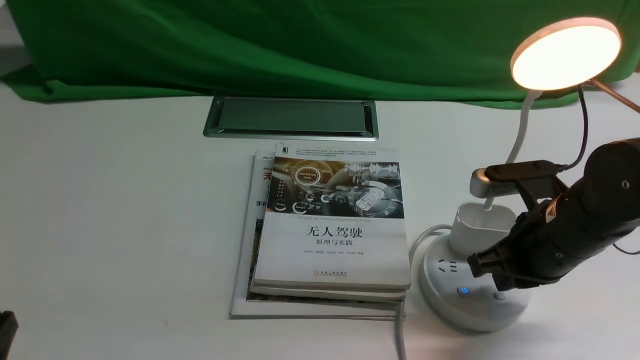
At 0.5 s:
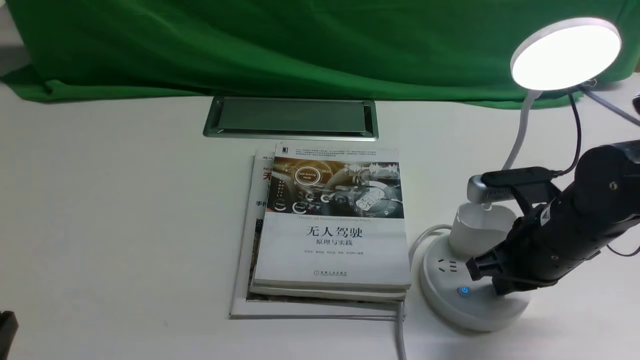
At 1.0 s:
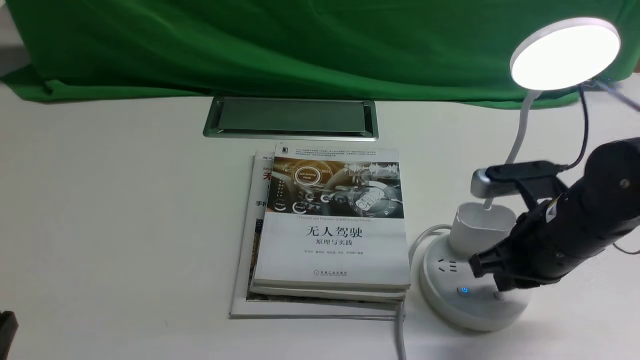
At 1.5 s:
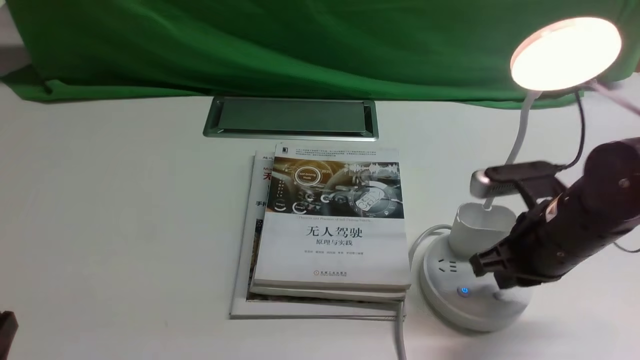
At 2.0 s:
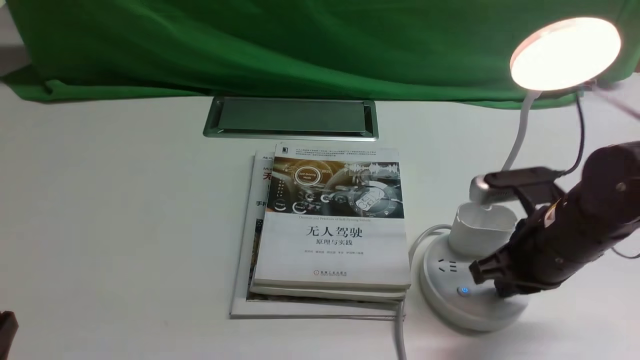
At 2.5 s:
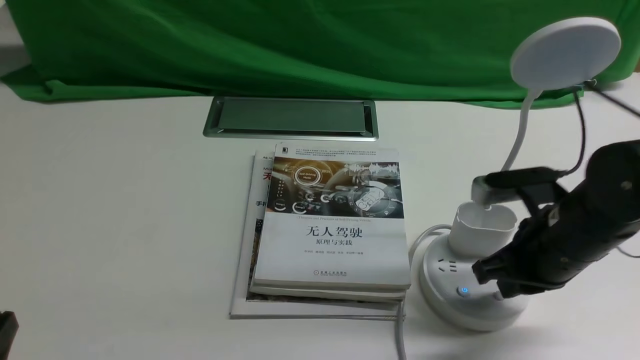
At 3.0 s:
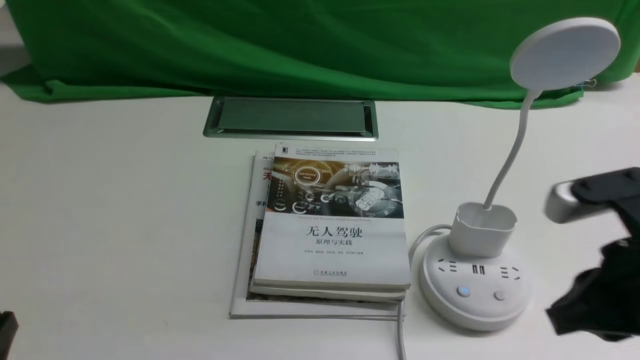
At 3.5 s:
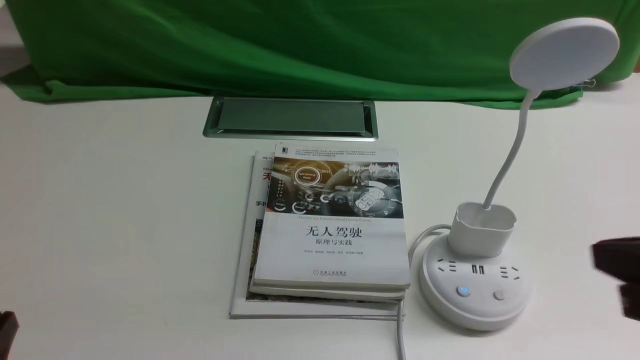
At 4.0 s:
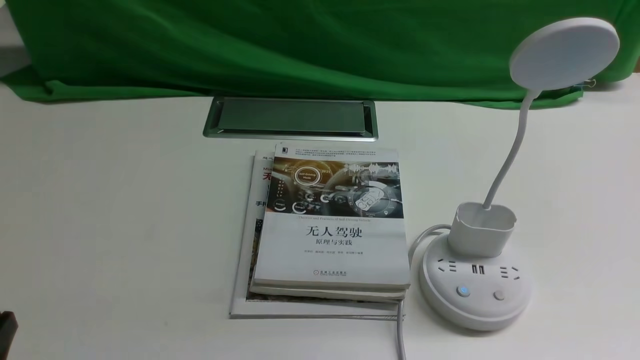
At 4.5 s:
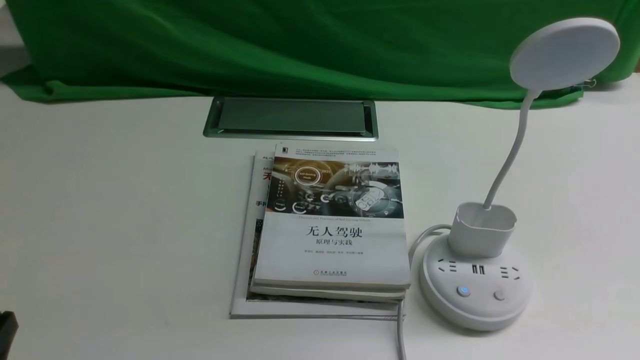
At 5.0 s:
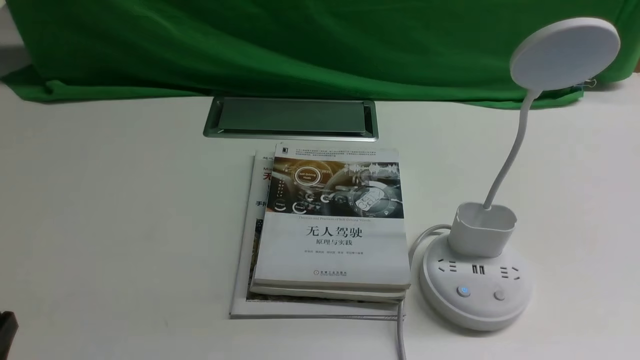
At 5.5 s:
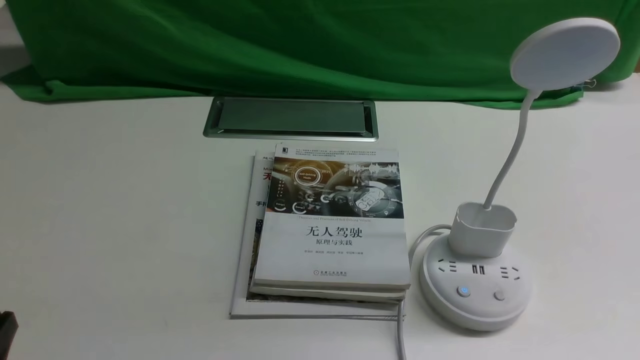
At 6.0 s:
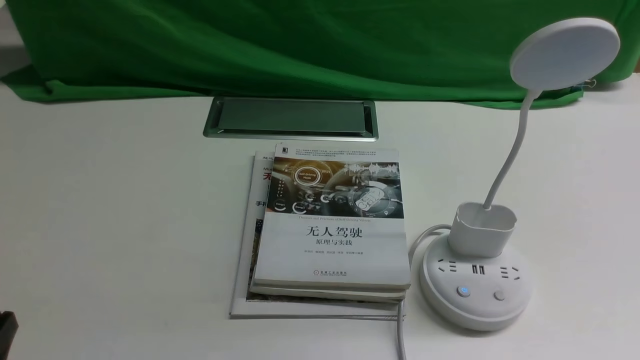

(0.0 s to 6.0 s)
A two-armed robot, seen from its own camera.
Task of the whole recording: turn off the desk lamp on the white desktop by hand.
Step, 0.0 s - 2.5 s: use the right arm to press the button switch on the lamp holder.
0.0 s - 2.0 s: The grippers stay close to where they were, moving slightly.
2.0 s - 4.0 s: The right gripper travels backward and to the right by some 25 cm, and opens its fingers.
